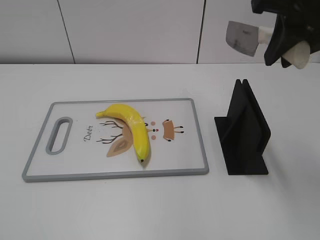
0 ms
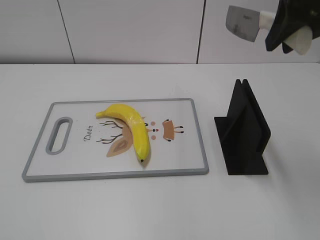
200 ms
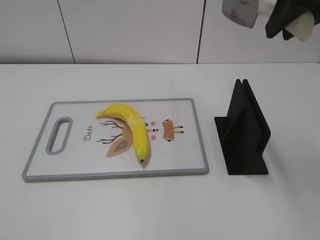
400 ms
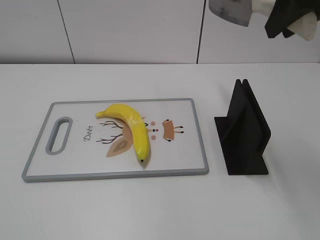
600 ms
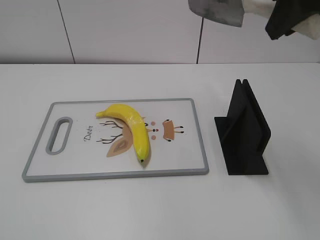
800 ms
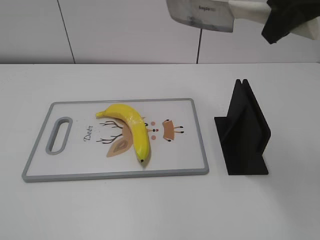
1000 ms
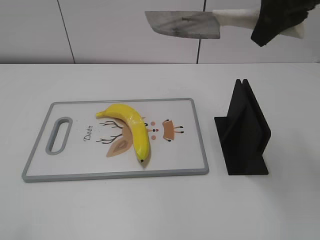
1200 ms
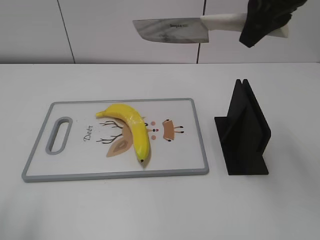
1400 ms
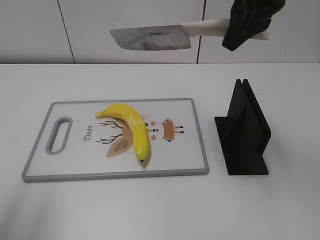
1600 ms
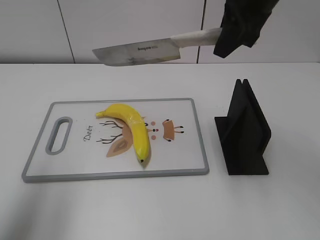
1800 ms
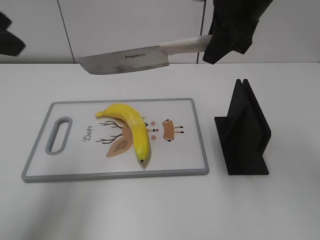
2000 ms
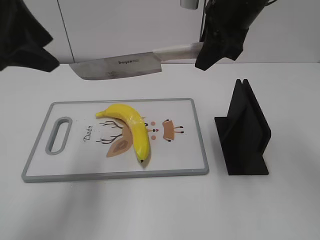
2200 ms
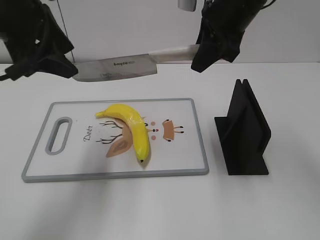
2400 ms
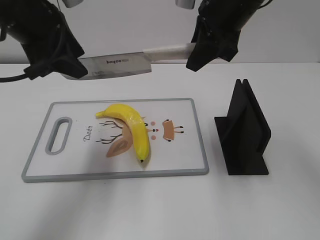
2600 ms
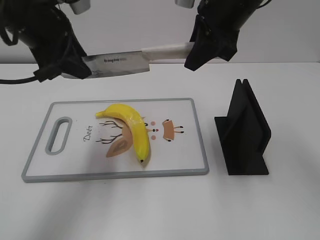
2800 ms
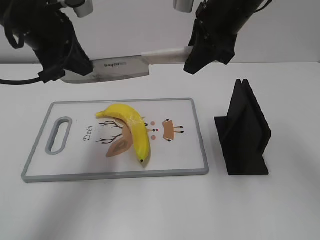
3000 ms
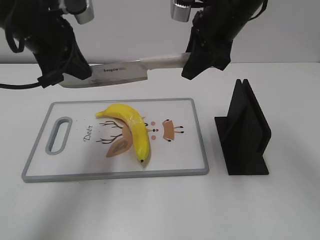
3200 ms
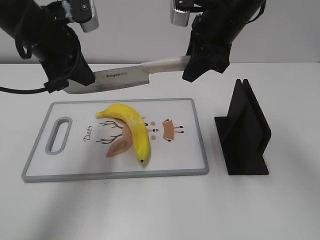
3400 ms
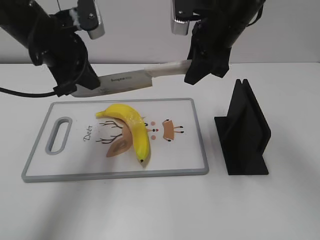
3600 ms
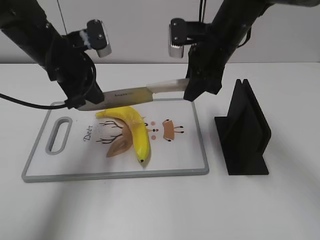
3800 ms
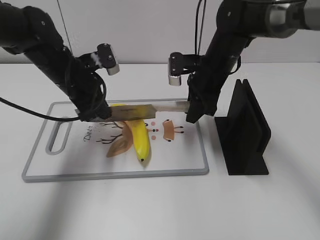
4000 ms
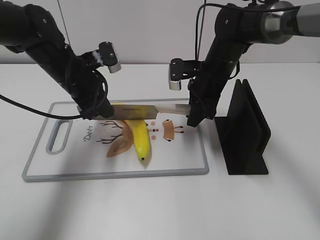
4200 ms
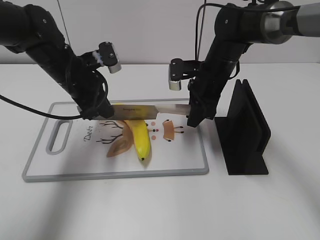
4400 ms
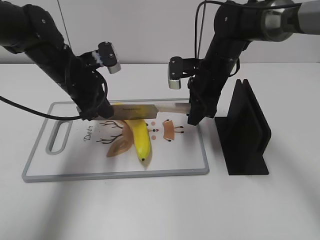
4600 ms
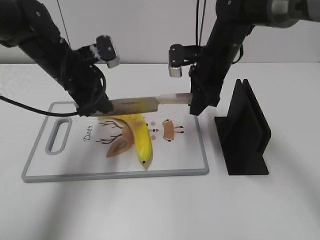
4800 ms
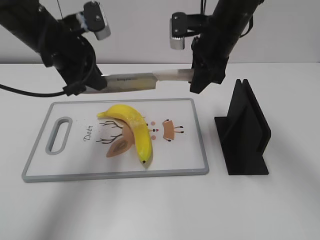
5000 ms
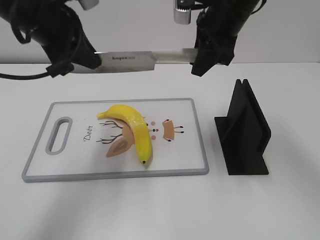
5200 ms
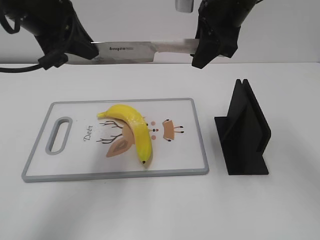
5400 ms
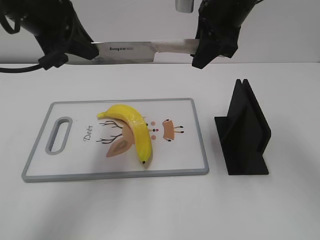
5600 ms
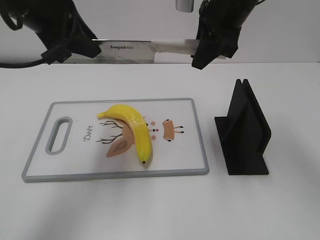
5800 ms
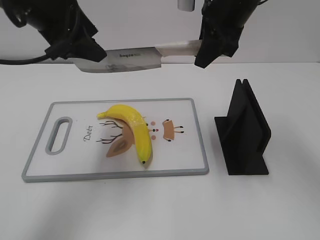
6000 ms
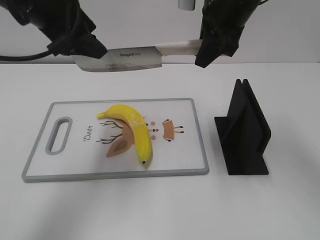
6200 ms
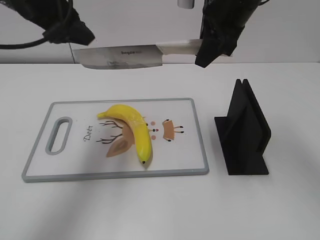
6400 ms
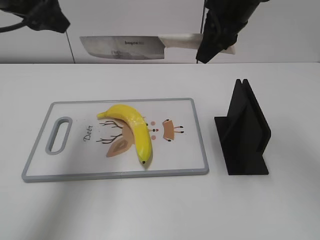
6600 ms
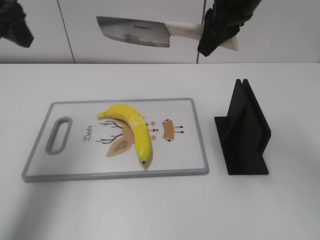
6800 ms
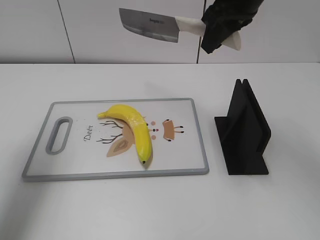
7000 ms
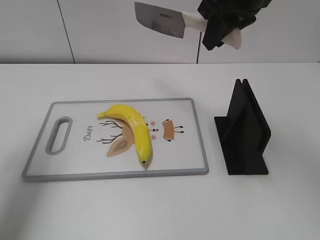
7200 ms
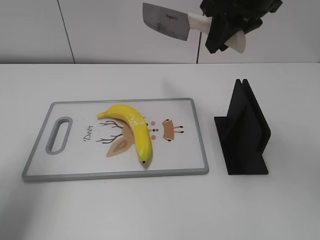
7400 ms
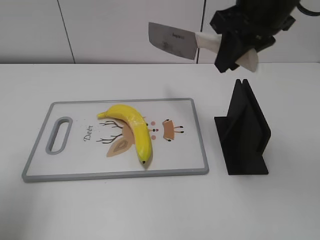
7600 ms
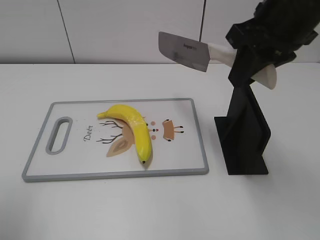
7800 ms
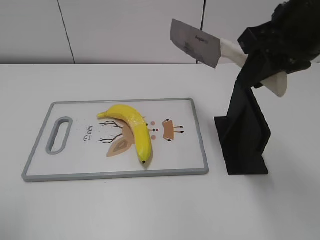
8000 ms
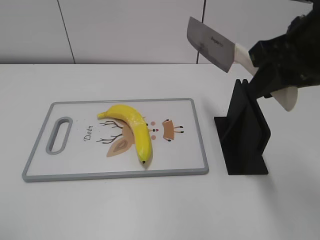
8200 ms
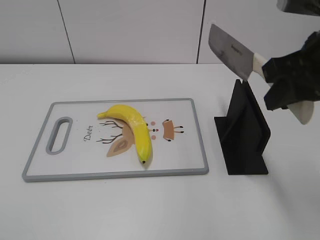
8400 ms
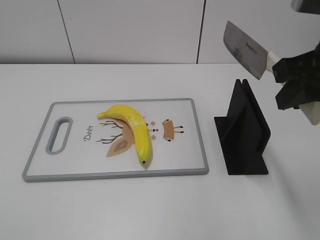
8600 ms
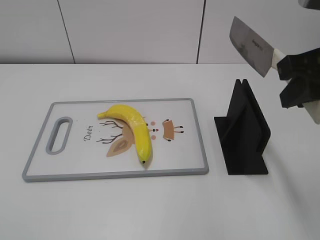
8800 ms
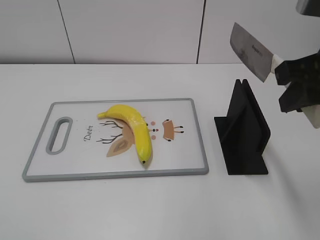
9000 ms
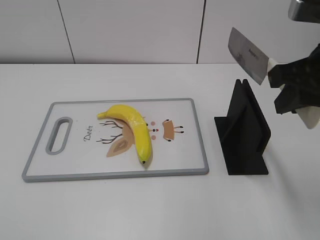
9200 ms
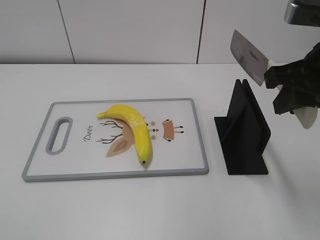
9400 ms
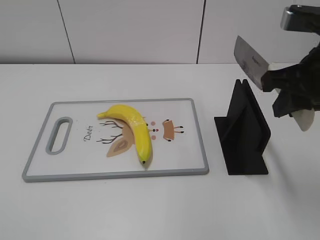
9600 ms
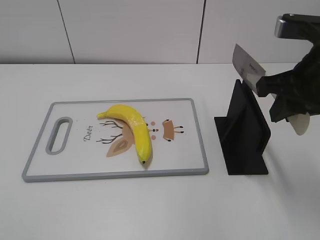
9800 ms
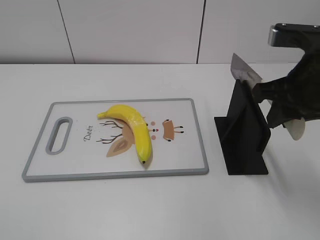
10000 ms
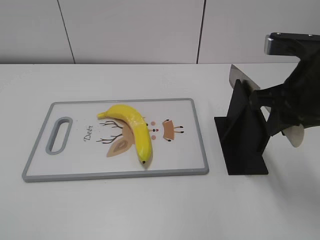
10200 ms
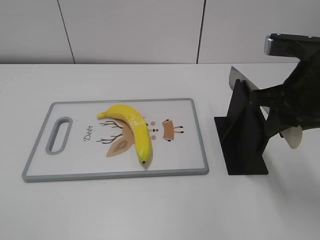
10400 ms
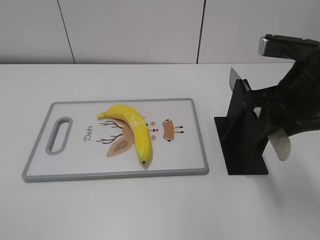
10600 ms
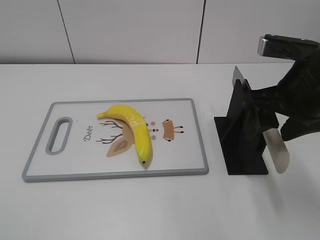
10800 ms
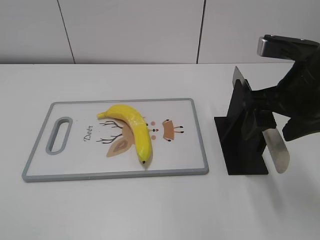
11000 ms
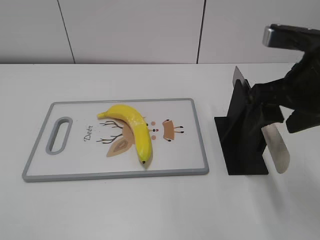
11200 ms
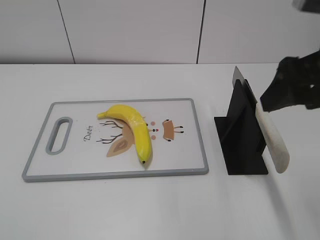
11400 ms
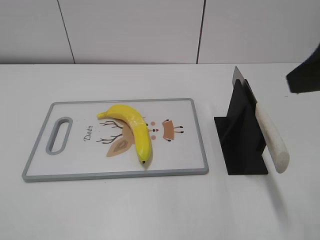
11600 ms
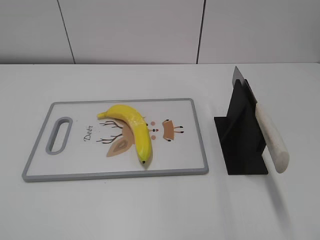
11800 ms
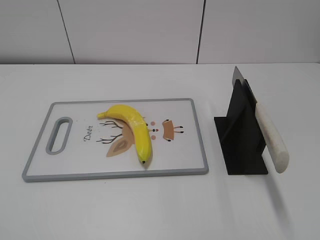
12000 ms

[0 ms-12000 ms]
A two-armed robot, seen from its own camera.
Task of the whole recording: cut plastic banana.
Step, 200 ms to 5400 ms: Lift the knife with your right hand.
Step, 5600 ms to 7000 ms: Cut the banana with your right hand.
Step, 7200 ms to 8600 ms: Lift the knife with your right hand.
0 ms to 1600 ms: The left gripper moves forward and upward, some 20 cm, while the right gripper moves forward, about 5 cm.
1600 ms to 3000 ms: The right gripper heads downward, covering approximately 5 cm. The left gripper heads forward and to the right, covering about 20 cm, and closes up.
3000 ms to 4400 ms: Both grippers move downward, about 15 cm.
4400 ms to 6000 ms: The two grippers go some 15 cm upward. The left gripper opens its fingers.
6000 ms to 7600 ms: The right gripper changes place by roughly 5 cm. Meanwhile the left gripper travels to the left and backward by roughly 15 cm.
7600 ms to 9000 ms: The right gripper moves backward and to the right, some 15 cm, while the left gripper is displaced backward by some 25 cm.
9000 ms to 10400 ms: The right gripper is displaced downward by about 5 cm.
10400 ms to 12000 ms: The right gripper travels backward and upward by some 20 cm, and opens up.

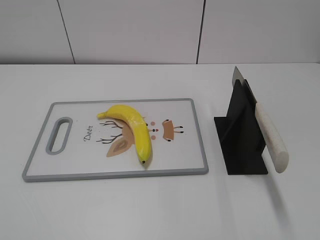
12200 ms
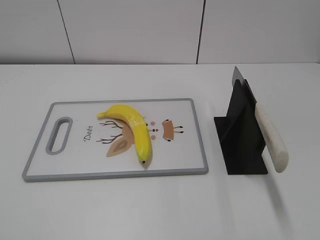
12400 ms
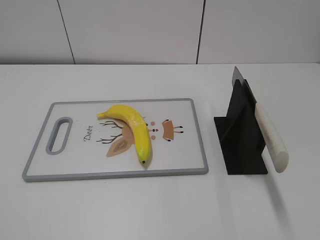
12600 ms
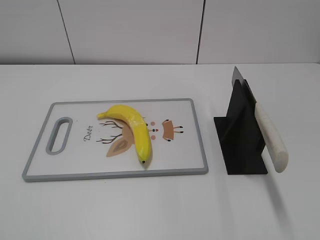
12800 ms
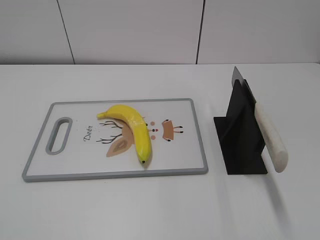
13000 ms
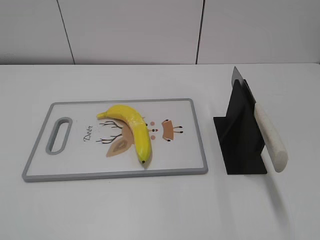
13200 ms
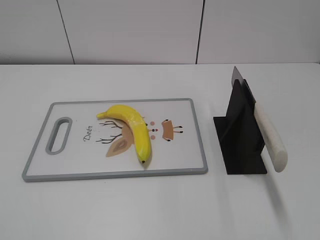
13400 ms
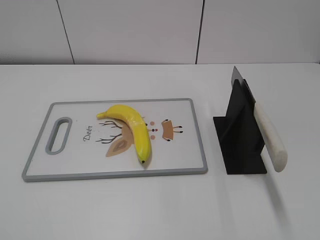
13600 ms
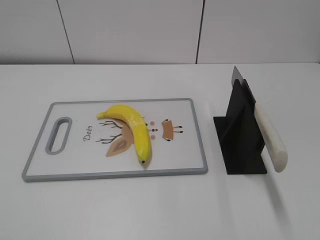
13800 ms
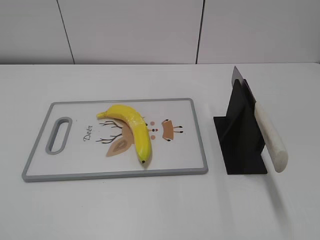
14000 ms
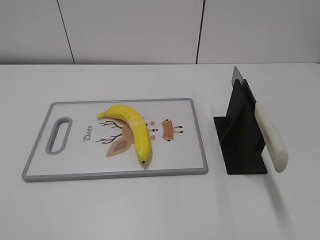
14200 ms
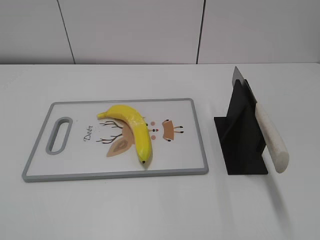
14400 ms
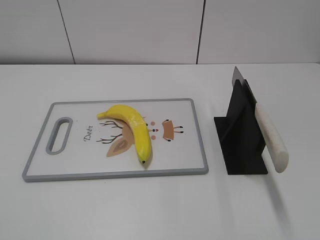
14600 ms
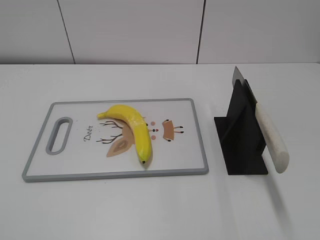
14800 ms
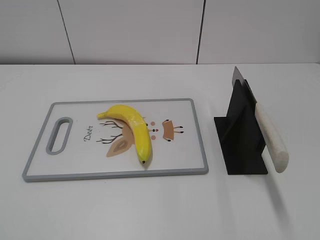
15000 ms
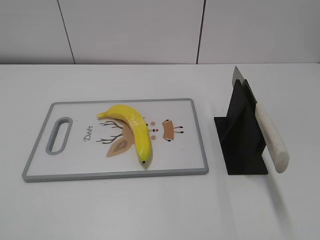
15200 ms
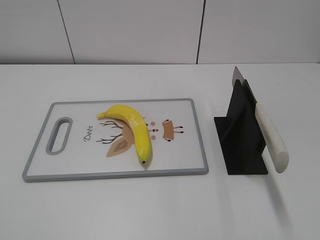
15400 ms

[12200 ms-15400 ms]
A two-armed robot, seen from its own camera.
Task of the whole recording: cut plastic banana.
12200 ms to 13800 ms: The right gripper is displaced backward by some 10 cm.
